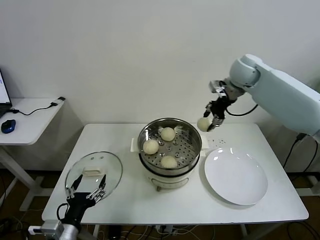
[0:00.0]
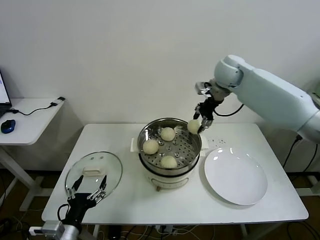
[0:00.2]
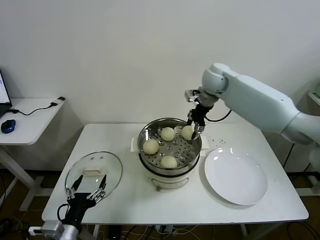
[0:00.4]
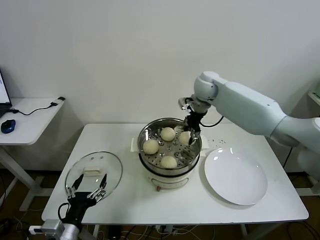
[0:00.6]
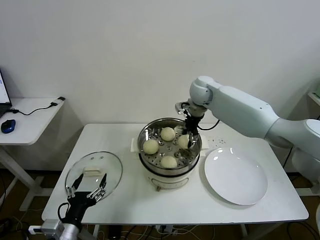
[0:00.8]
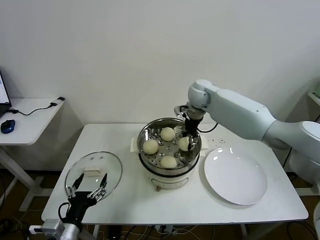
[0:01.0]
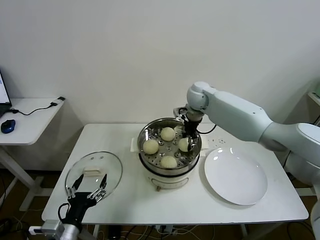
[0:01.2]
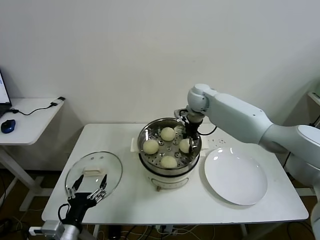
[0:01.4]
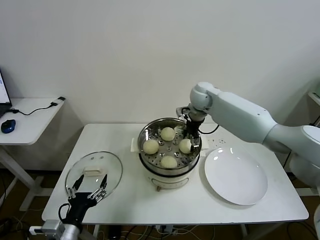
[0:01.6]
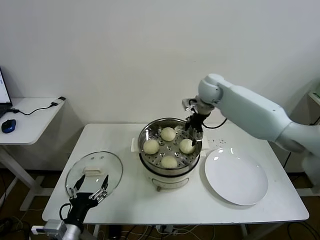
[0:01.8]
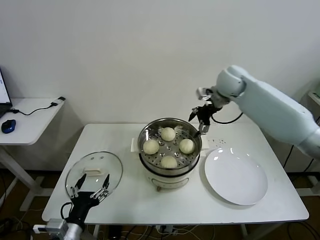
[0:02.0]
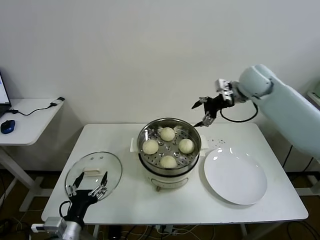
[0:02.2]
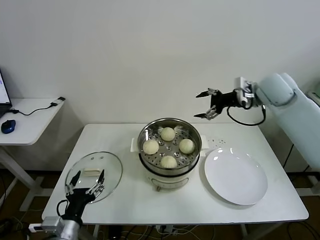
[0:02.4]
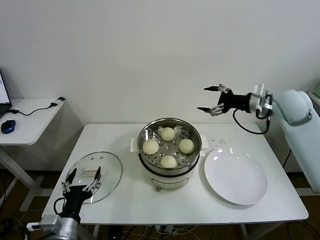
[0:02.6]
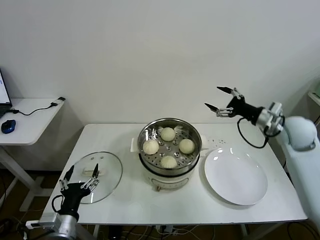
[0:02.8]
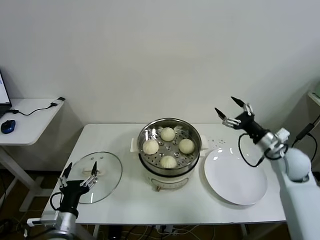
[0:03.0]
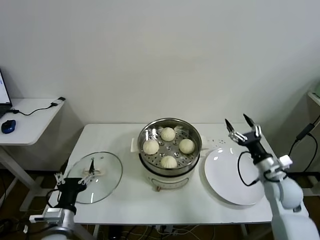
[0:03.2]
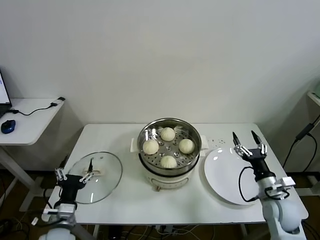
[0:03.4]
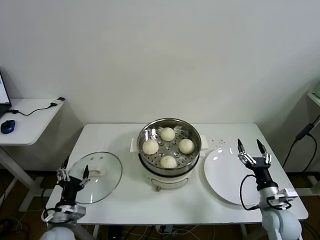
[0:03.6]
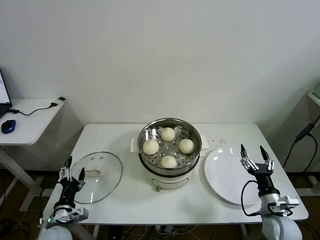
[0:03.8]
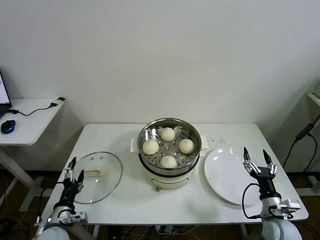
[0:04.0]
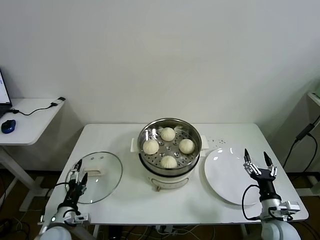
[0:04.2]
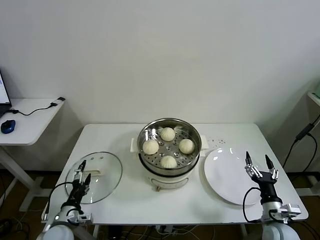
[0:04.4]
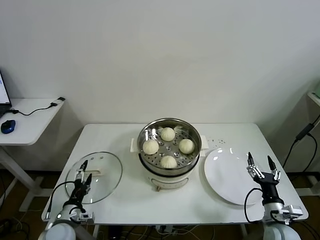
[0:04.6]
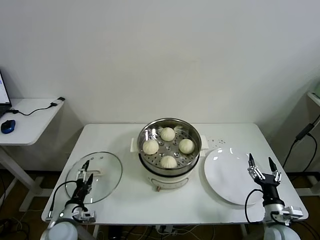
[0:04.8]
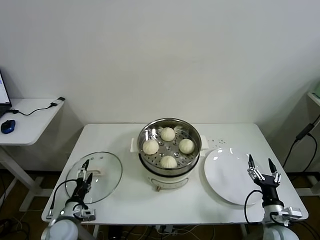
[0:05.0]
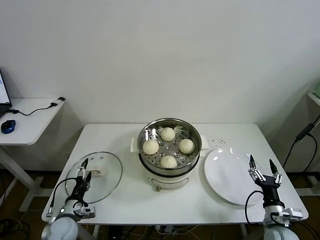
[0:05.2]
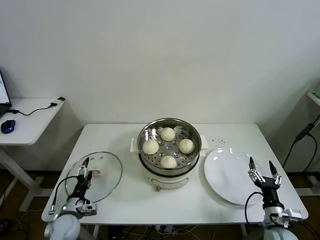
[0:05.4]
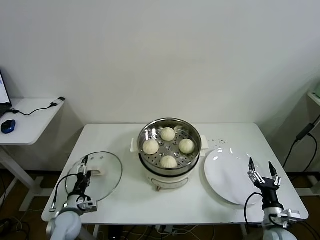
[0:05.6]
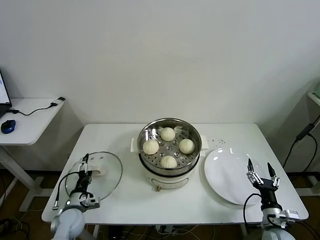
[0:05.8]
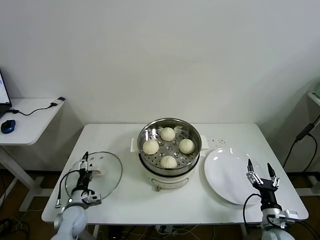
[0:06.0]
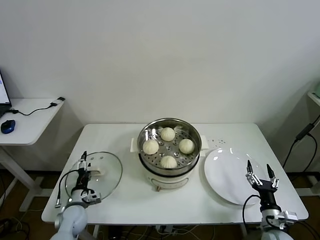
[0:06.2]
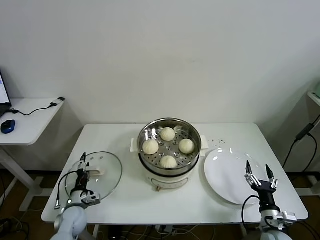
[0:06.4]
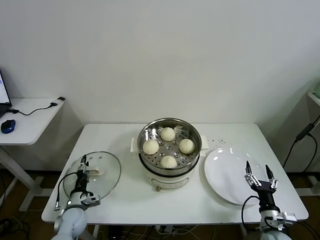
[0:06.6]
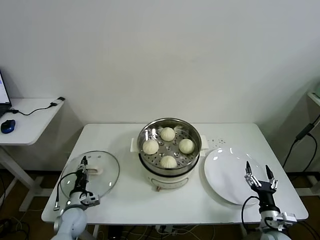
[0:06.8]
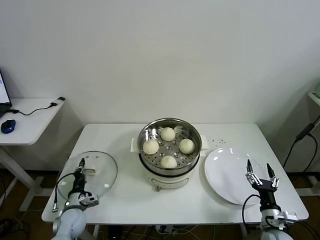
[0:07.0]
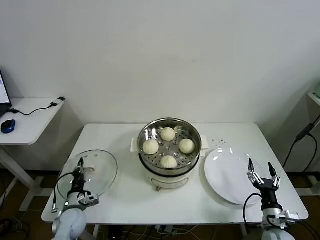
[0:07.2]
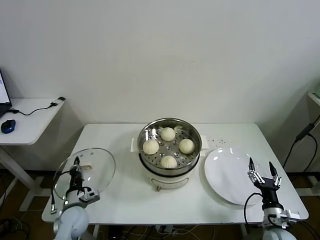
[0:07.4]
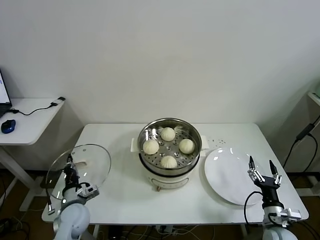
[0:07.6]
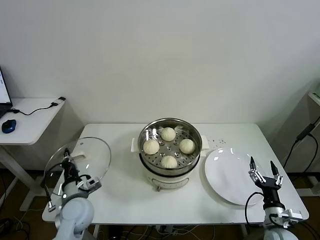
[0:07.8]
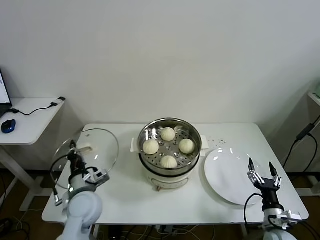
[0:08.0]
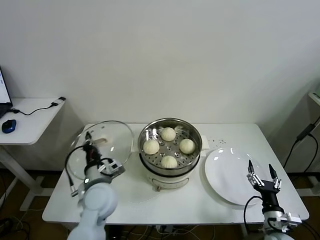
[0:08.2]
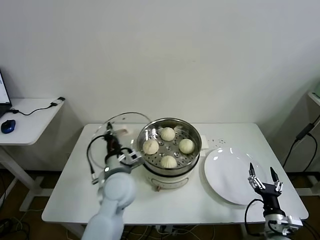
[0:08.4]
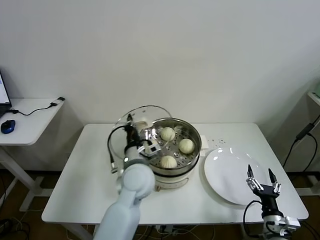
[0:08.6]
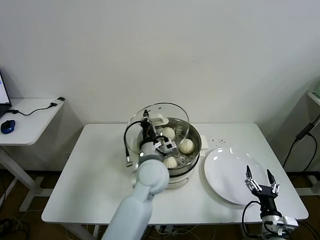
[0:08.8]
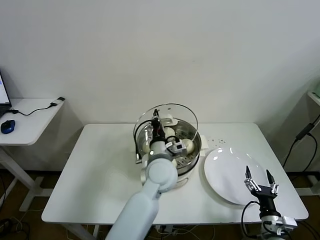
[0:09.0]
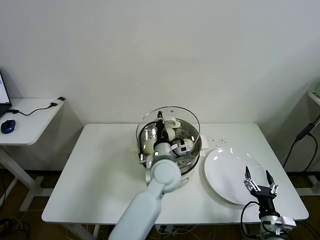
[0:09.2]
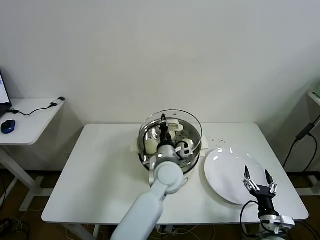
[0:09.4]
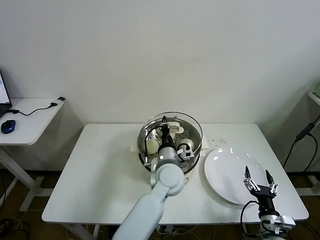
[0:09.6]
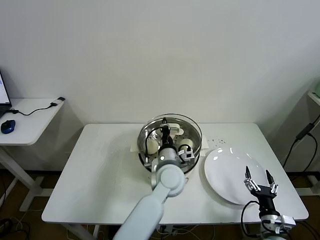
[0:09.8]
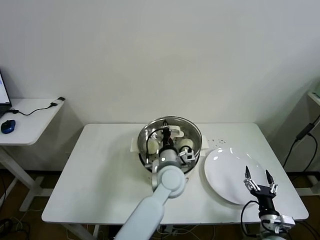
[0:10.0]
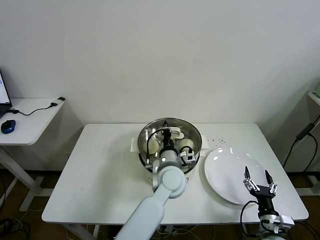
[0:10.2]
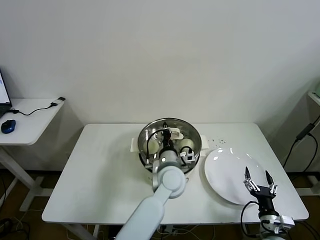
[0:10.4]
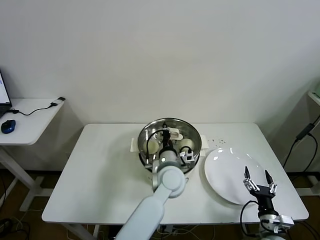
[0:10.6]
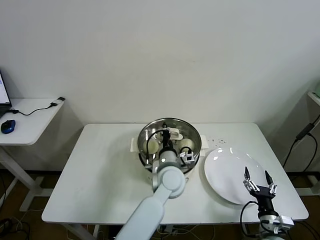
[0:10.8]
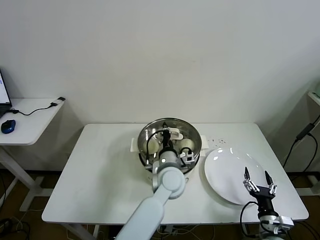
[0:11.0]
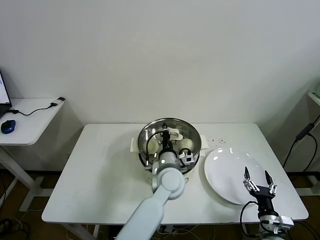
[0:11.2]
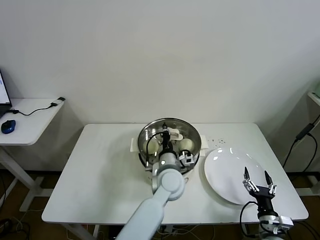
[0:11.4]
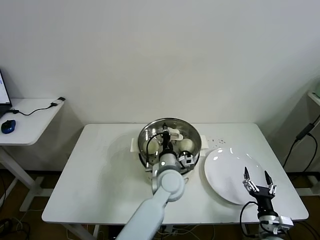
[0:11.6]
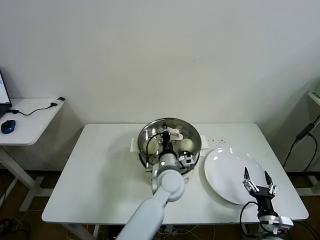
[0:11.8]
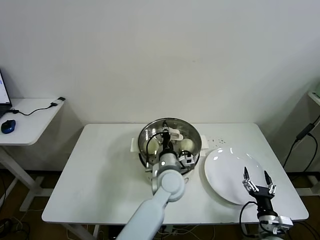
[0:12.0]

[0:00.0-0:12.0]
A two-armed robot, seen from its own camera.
Task of the whole recording: take steamed baozi put them in steamer then cover it.
Step, 0:00.0 to 0:01.6: Place the baozi on the steamer with right gripper.
Step, 0:01.8 to 0:07.0: Grasp the pot lid with left gripper.
0:00.0 to 0:01.6: The right gripper heads to the left and downward, covering about 15 cm, and opens.
0:01.6 to 0:03.0: The right gripper travels to the right, backward and downward by some 35 cm.
0:03.0 to 0:04.4: The left gripper moves downward, to the left and forward, some 15 cm, while the right gripper travels downward and backward by about 25 cm.
0:04.4 to 0:06.0: The left gripper shifts approximately 10 cm forward.
0:06.0 to 0:07.6: The left gripper goes some 5 cm upward, and closes up.
0:07.6 to 0:09.0: The left gripper heads to the right and upward, covering approximately 35 cm.
0:09.0 to 0:10.4: The left gripper moves some 5 cm.
0:10.4 to 0:12.0: There are only small adjustments of the grippers.

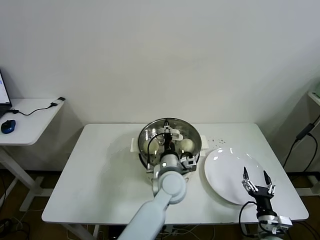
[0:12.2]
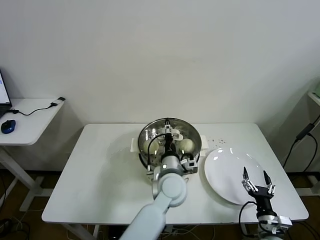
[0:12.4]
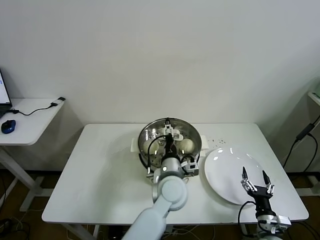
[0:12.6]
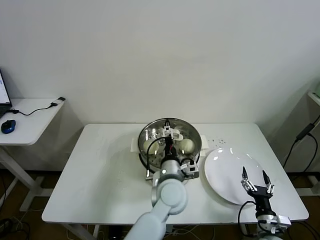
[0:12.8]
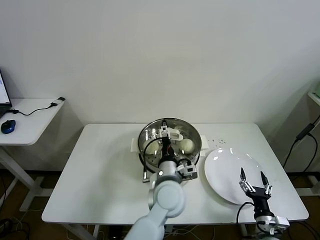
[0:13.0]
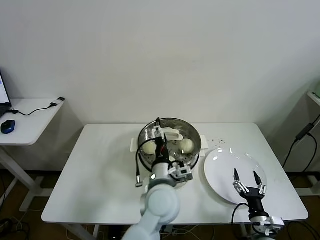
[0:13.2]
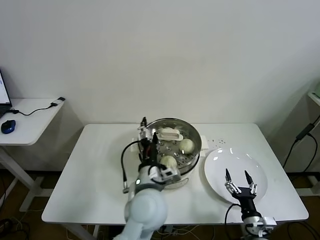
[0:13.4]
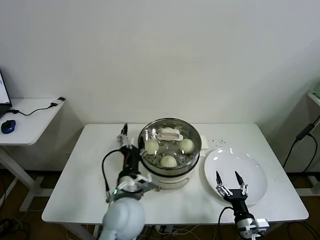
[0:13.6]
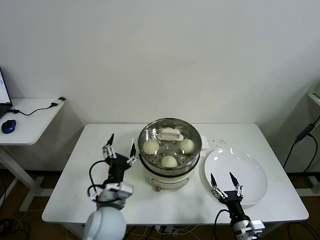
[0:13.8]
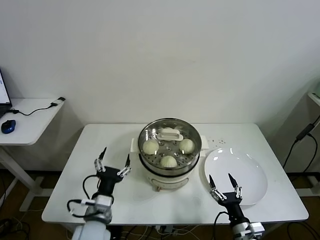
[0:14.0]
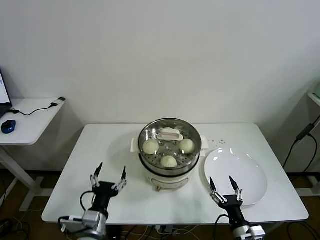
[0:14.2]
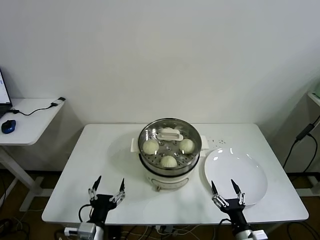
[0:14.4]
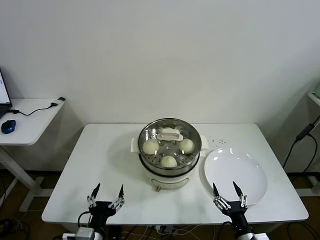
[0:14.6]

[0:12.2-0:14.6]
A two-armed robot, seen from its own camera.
Task of the whole recording: take steamed baozi put them in steamer then cover it.
0:12.2 to 0:13.4: The left gripper moves backward and upward, approximately 10 cm, and opens.
0:13.4 to 0:14.6: The right gripper is displaced backward by approximately 5 cm; the left gripper is displaced to the left, backward and downward by some 25 cm.
